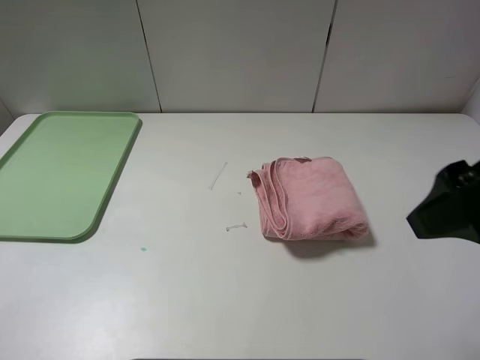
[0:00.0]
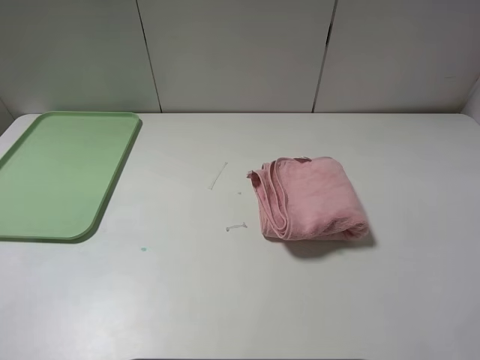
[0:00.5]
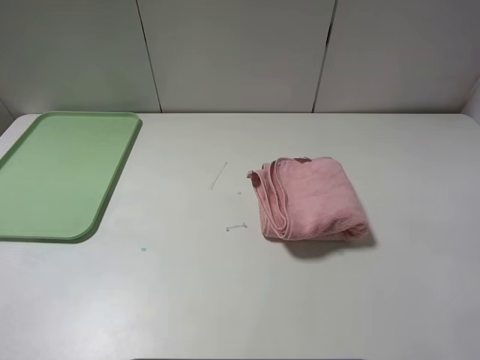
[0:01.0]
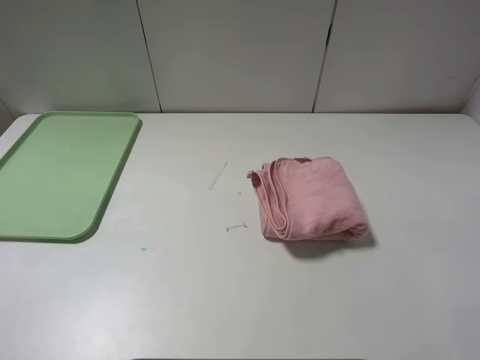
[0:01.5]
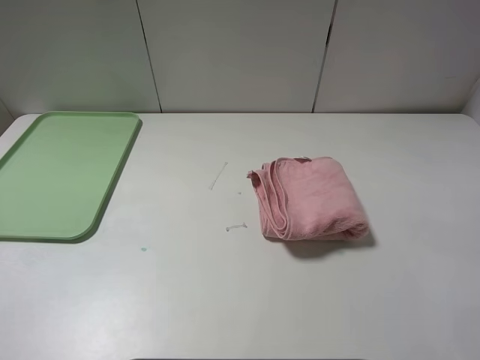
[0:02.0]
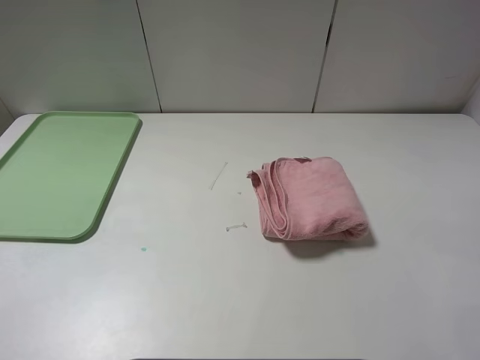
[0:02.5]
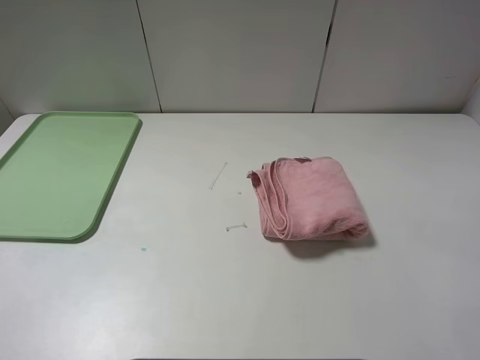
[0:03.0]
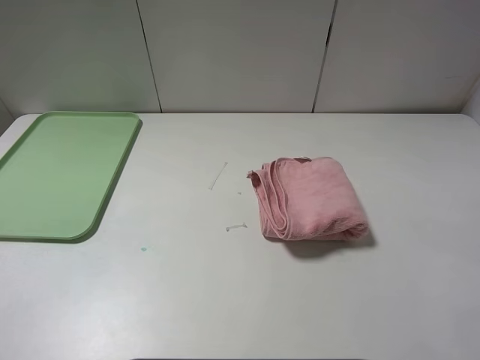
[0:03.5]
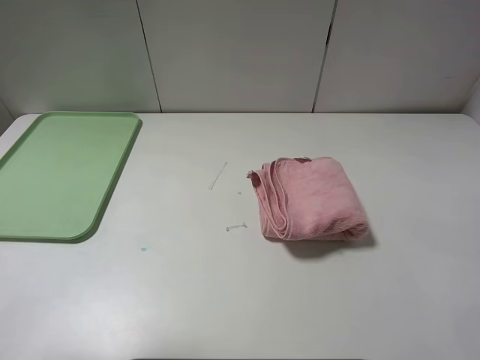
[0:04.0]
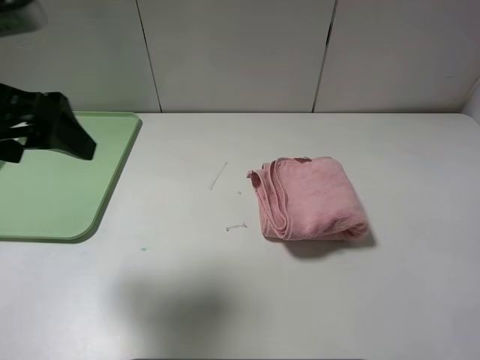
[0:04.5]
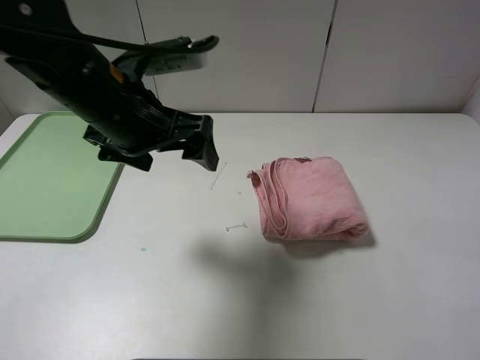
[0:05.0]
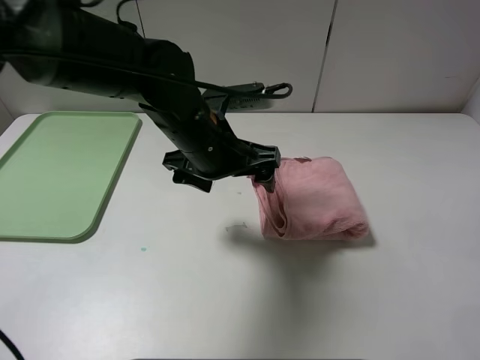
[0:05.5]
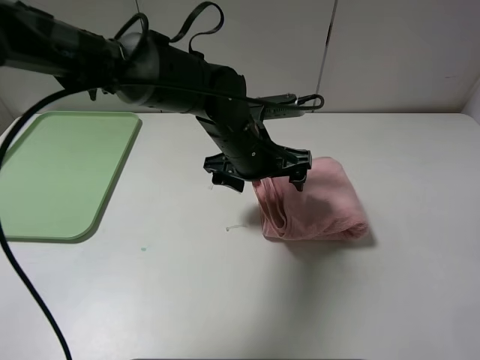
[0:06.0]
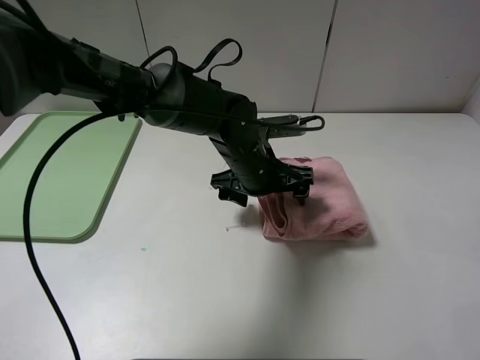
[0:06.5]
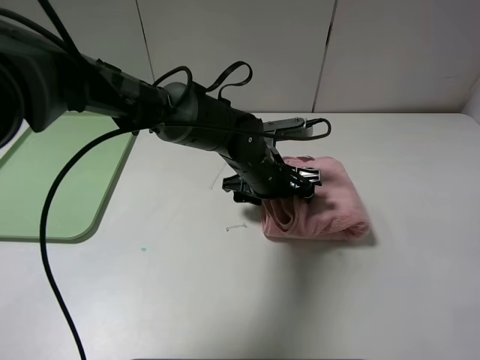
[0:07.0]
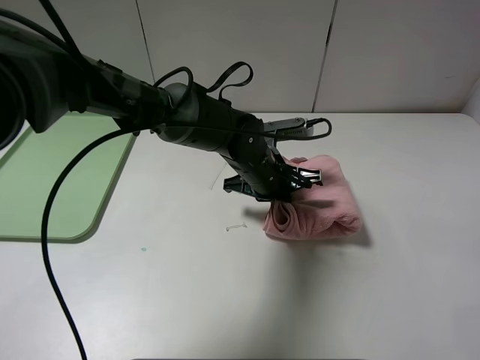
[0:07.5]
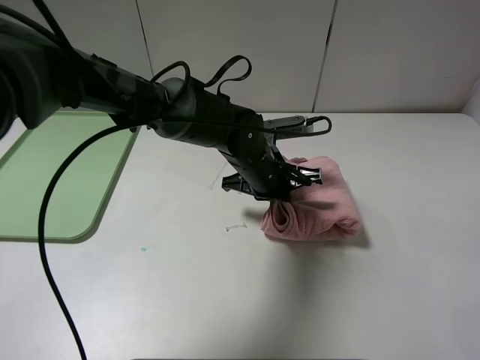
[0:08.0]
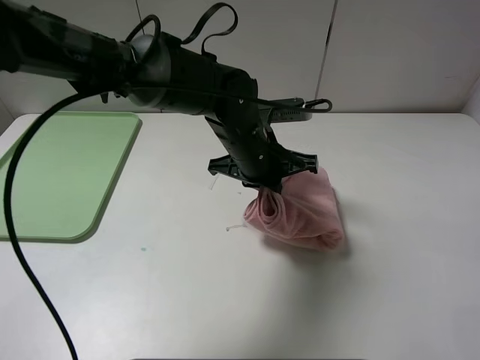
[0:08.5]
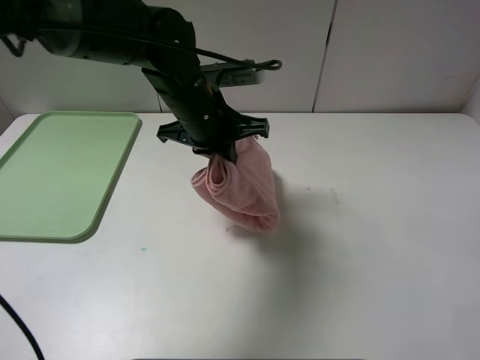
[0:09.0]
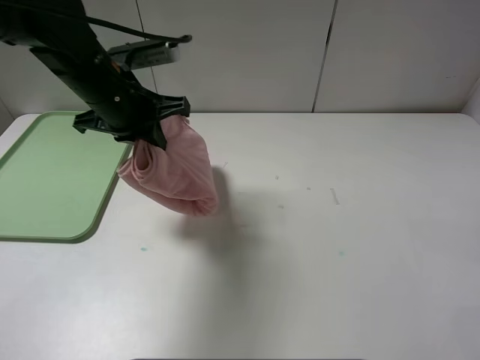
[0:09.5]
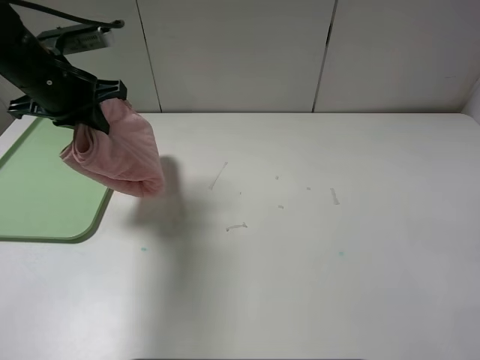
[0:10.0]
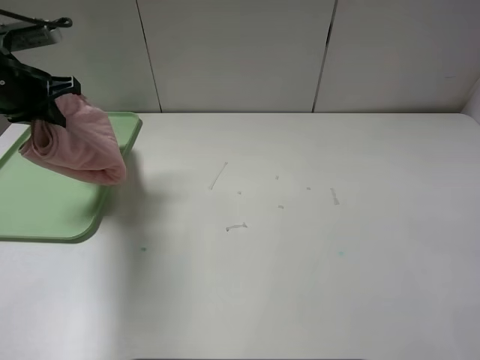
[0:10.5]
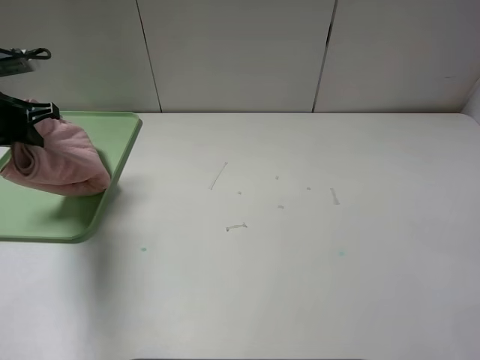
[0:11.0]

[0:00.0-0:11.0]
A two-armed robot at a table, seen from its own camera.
0:00.0 to 0:02.0: The right gripper shifts roughly 15 cm backward and to the right.
0:03.5 to 0:05.5: The left gripper heads to the right, forward and downward, covering some 40 cm.
0:05.5 to 0:07.5: The left gripper heads downward and to the right, covering roughly 10 cm, and closes.
0:07.5 to 0:09.0: The left gripper shifts roughly 15 cm upward and to the left.
0:09.0 to 0:11.0: The left gripper moves to the left, some 30 cm.

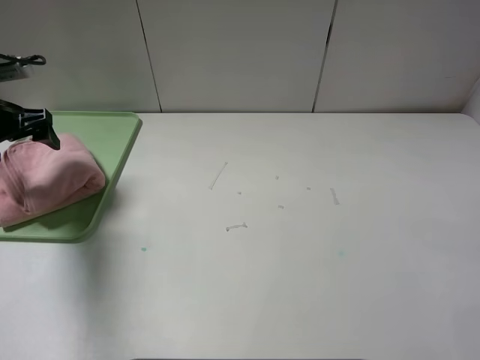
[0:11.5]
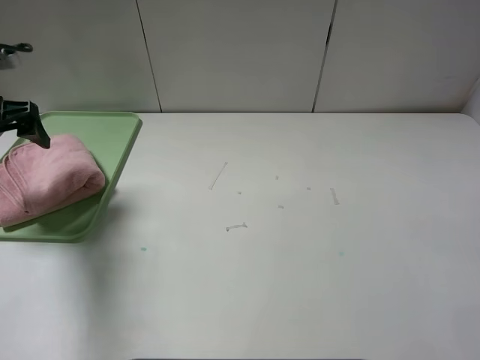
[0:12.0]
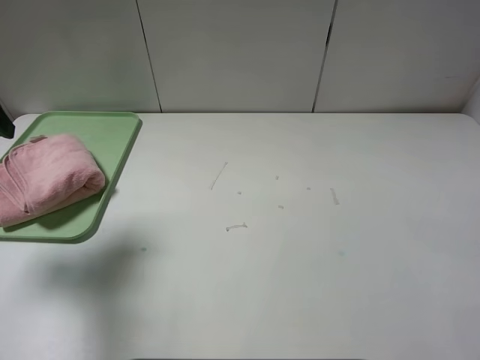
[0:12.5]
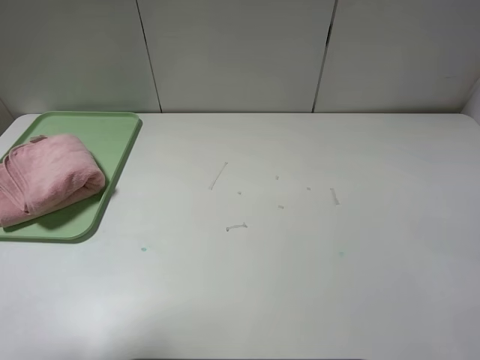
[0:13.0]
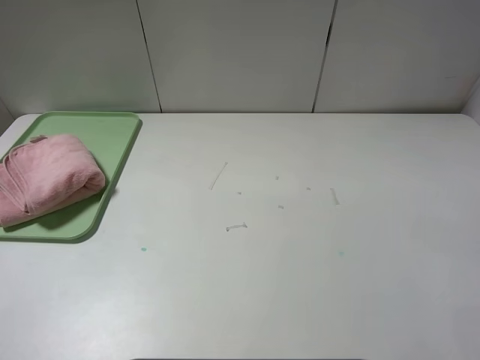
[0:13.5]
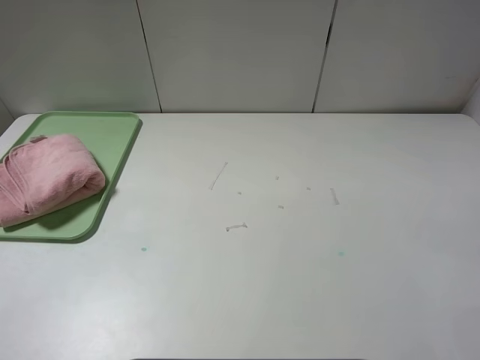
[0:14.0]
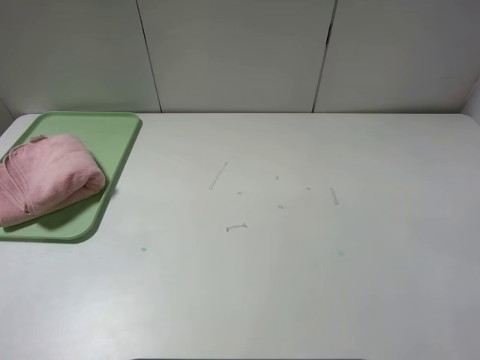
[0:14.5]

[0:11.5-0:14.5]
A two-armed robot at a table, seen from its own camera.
0:11.5 to 0:13.0: The left gripper travels backward and upward by some 30 cm.
0:13.0 to 0:14.5: The left gripper travels backward and downward by about 15 cm.
